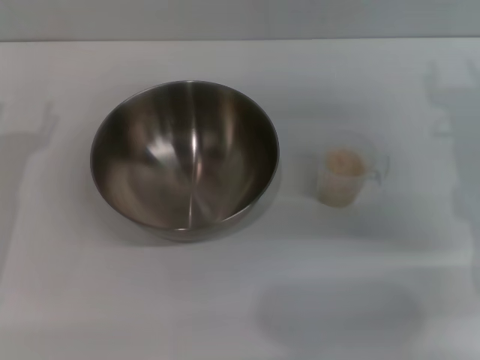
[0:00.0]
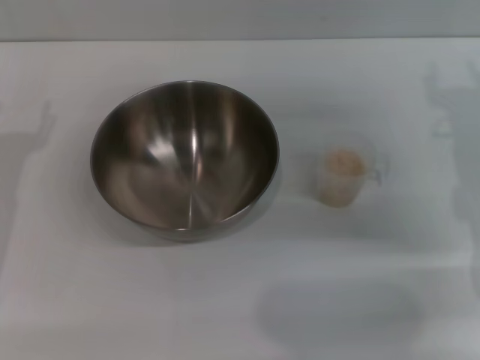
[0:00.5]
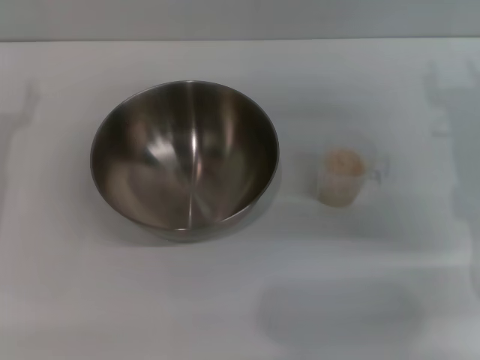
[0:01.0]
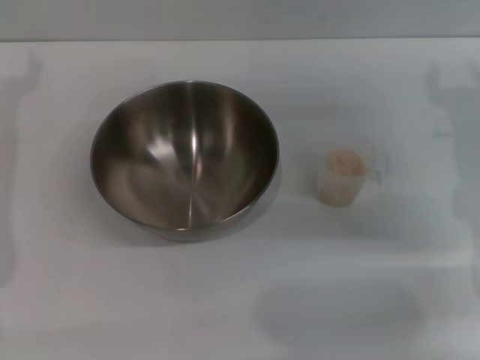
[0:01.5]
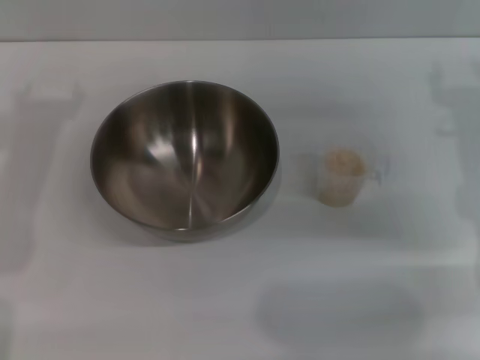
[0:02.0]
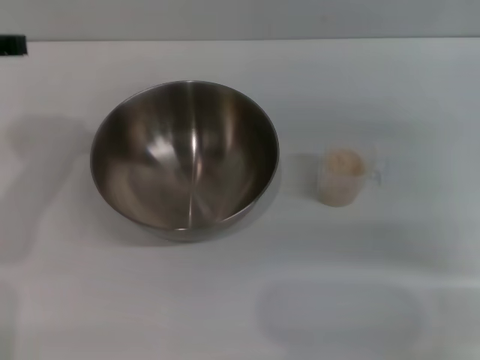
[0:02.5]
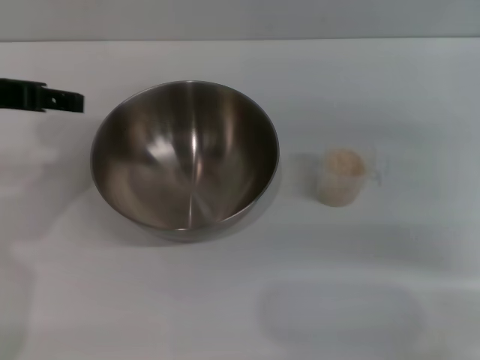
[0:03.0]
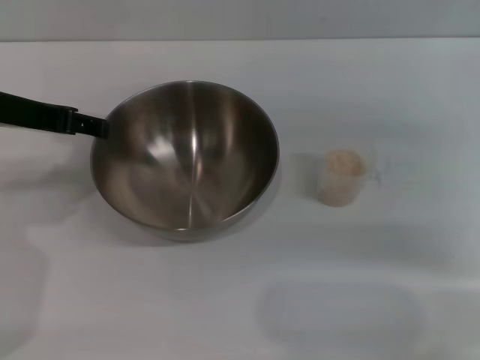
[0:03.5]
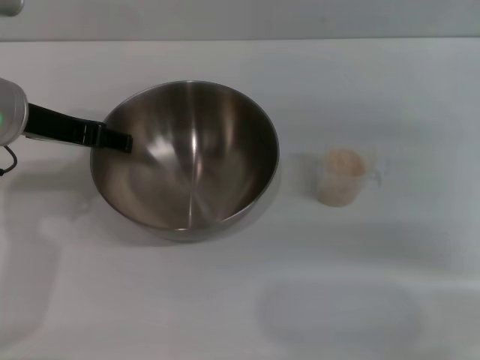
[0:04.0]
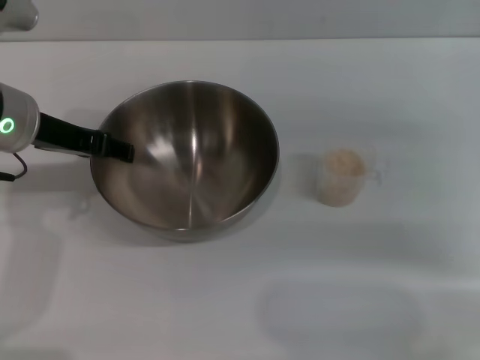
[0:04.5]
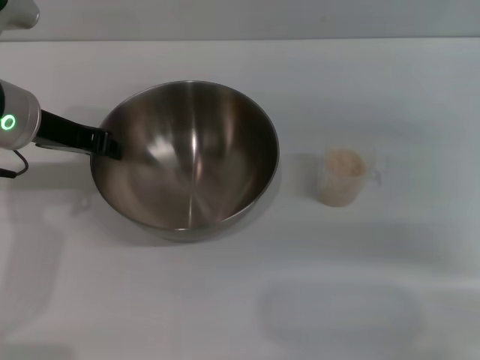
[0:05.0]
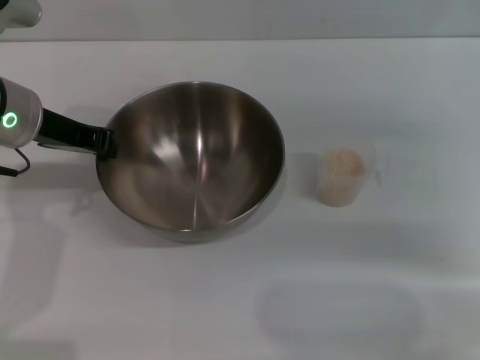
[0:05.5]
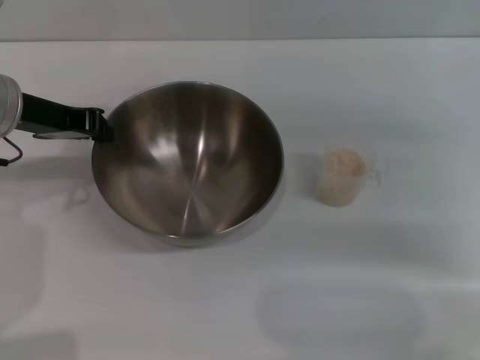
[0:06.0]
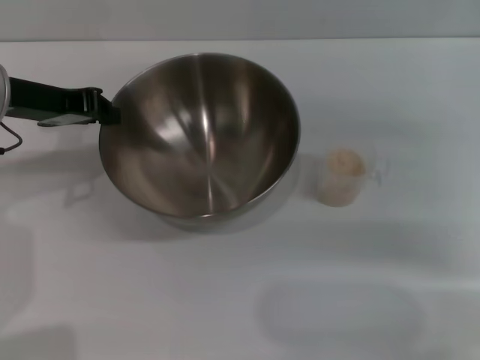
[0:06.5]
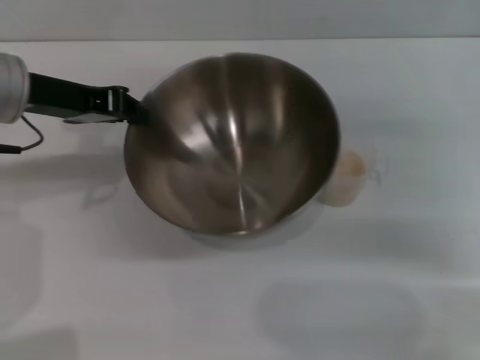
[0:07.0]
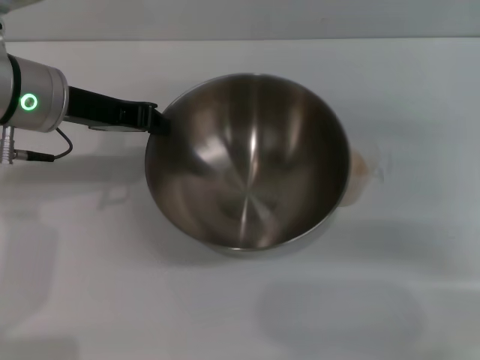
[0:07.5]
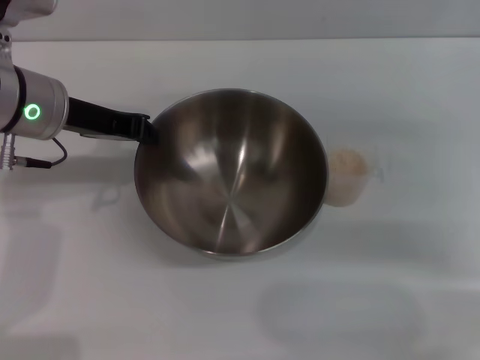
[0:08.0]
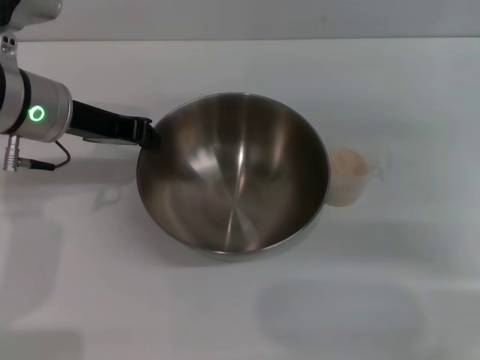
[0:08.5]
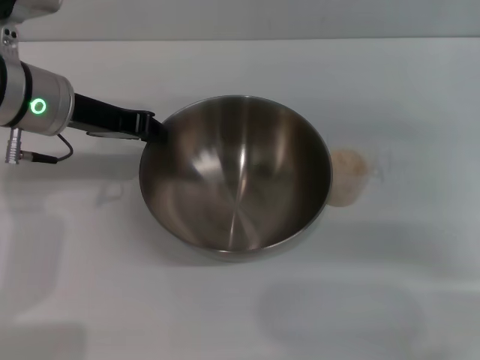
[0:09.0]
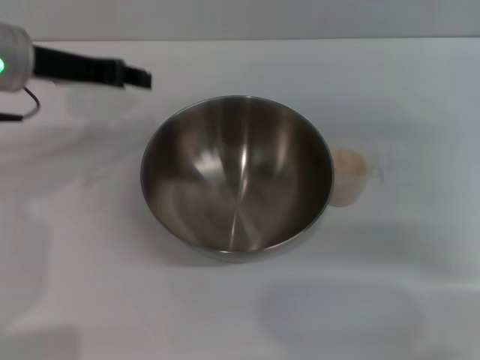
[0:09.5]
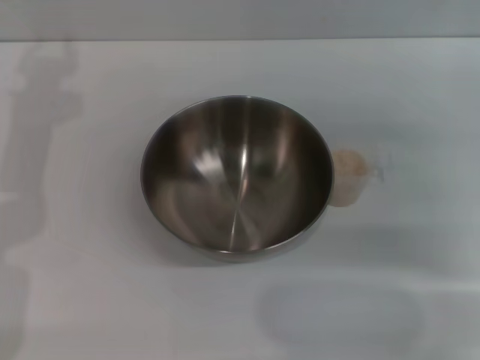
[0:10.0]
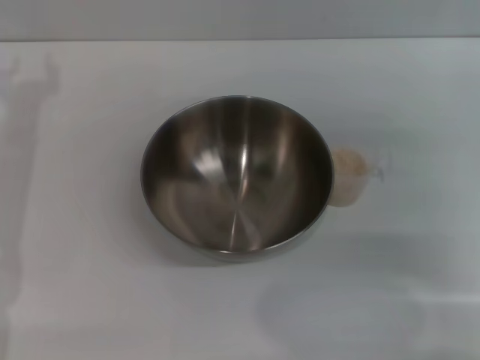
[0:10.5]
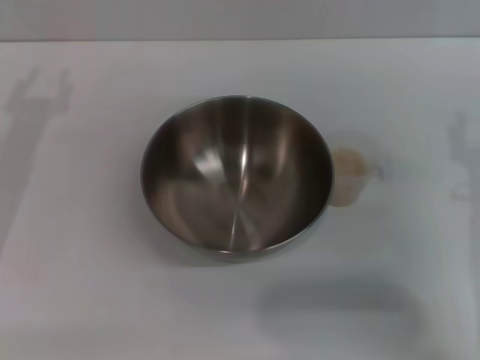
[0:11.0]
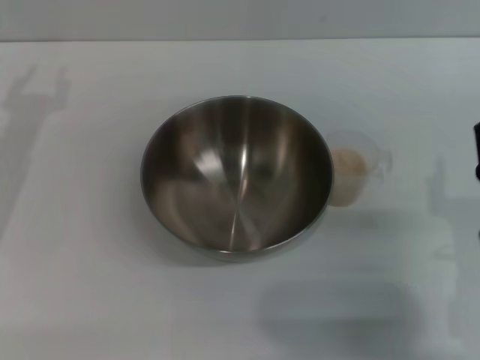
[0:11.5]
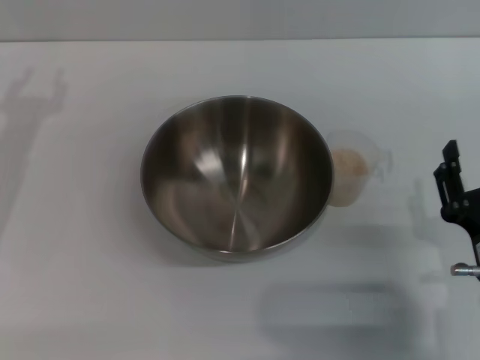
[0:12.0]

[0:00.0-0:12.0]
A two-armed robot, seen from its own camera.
Task of the whole recording: Place the bowl in the middle of the table with one hand and pour the rice from the grain cup into it with the other hand.
Step, 0:00.0 to 0:06.5: Pick up the bowl with the left gripper.
Step, 0:07.0 to 0:09.0: Place the bowl in the center of view with the left gripper.
0:02.0 to 0:04.0: The left gripper travels downward and to the right by some 10 cm. The right gripper changes place by about 5 cm.
0:04.0 to 0:06.0: The left gripper closes.
0:06.0 to 0:08.0: The grippers move only a little.
0:08.0 to 0:10.0: The left gripper shifts about 10 cm to the left, and opens its fingers.
0:10.0 to 0:12.0: The right gripper shifts about 20 cm backward, downward and to the left.

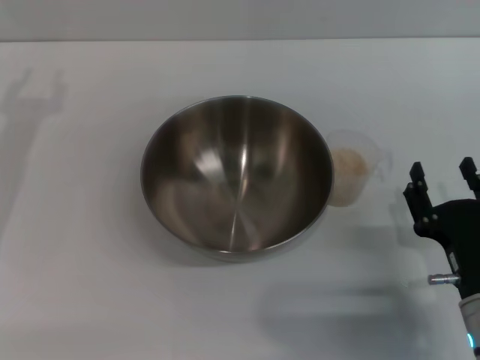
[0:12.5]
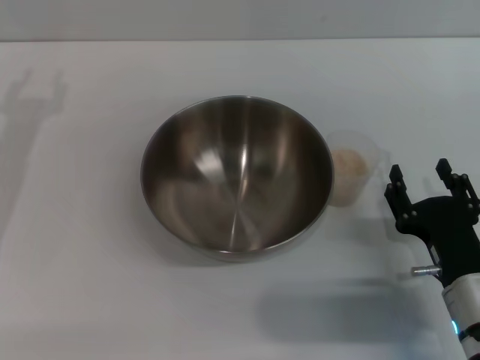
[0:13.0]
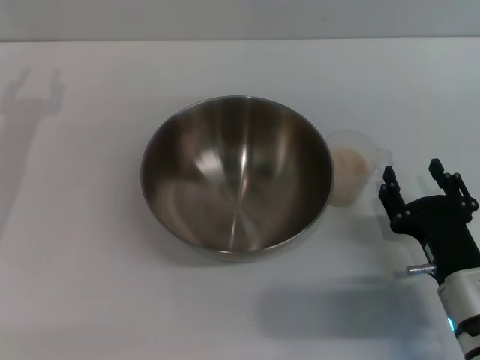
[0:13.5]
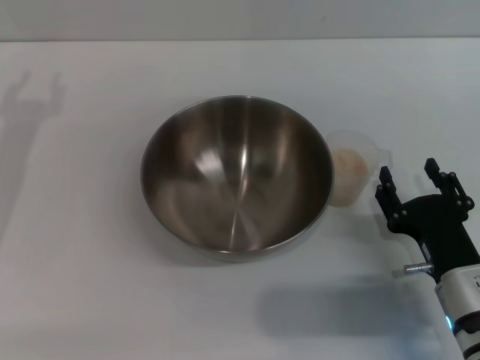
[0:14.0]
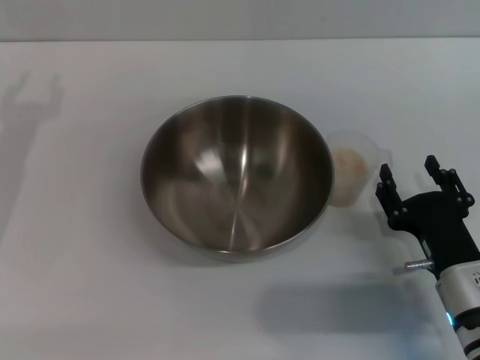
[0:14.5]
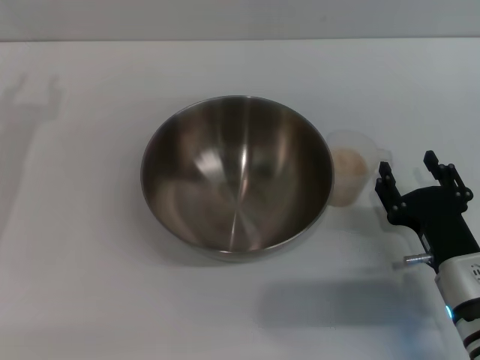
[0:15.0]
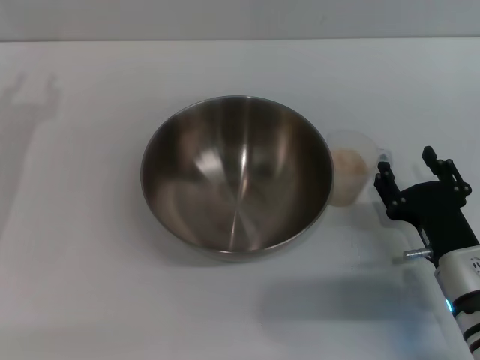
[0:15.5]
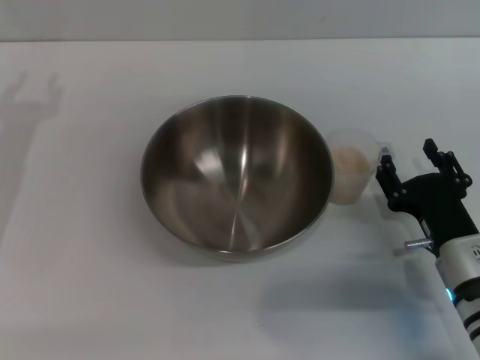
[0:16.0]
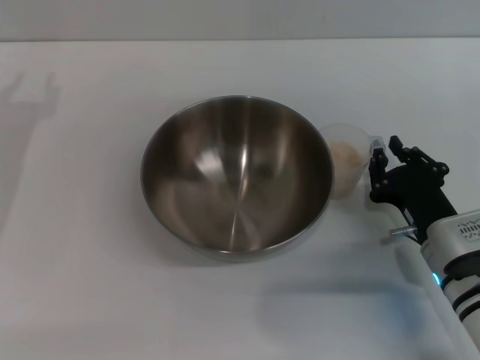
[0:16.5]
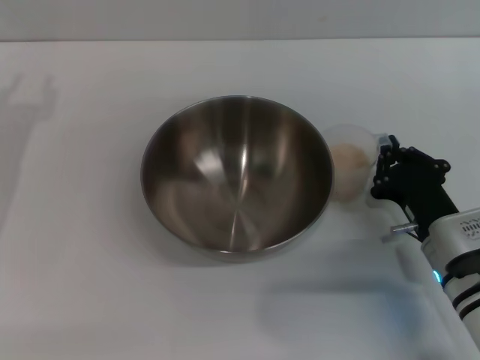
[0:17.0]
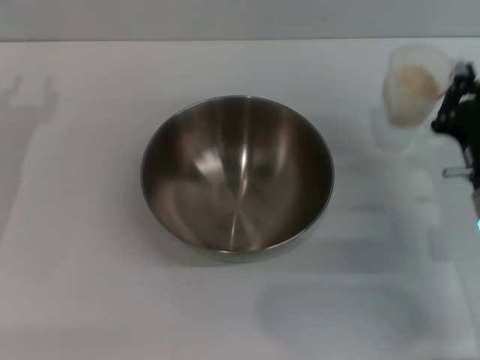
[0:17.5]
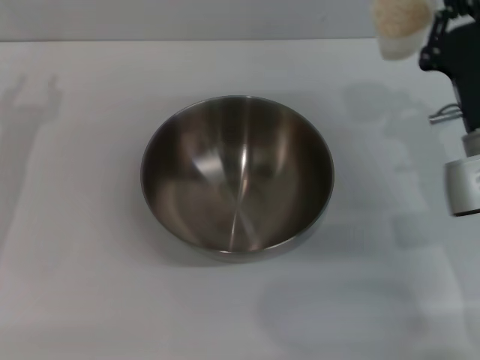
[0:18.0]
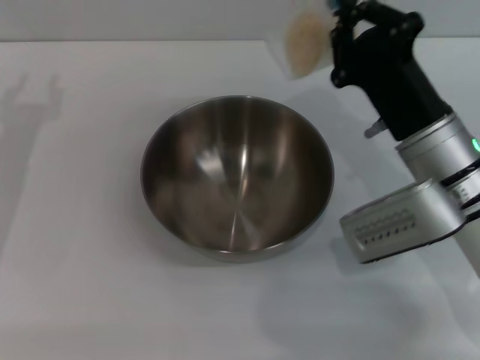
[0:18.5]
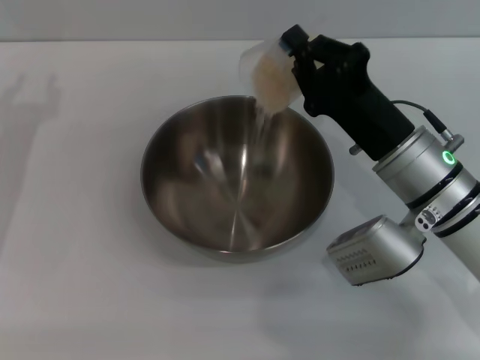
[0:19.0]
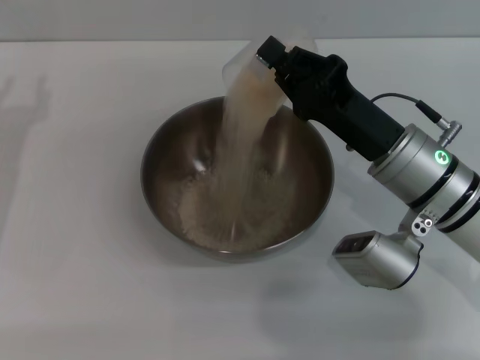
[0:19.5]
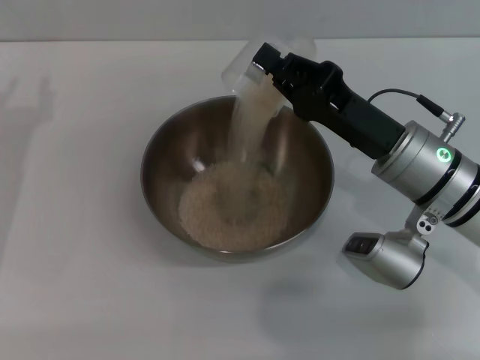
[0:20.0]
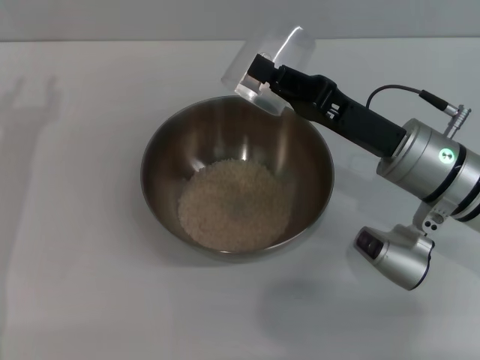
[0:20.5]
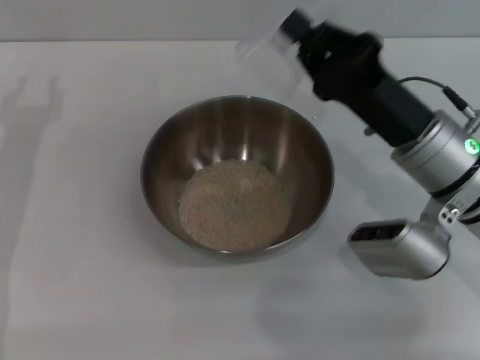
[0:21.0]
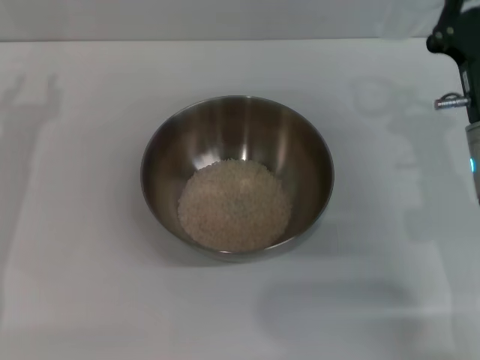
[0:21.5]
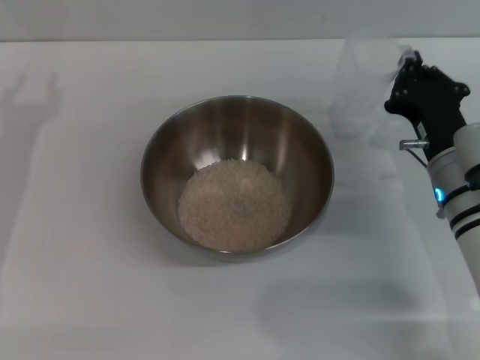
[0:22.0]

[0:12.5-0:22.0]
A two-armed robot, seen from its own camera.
Task of the whole recording: Place the bowl in the middle of the table with one hand and pour the rice from the grain cup into it with the other hand.
Step, 0:12.5 to 0:17.0: Pick up the cup with rice in it with the right gripper.
Step, 0:17.5 to 0:20.5: Pour the rice from the cup into the bowl with the right gripper.
0:12.5 to 0:14.5: The grippers stay close to where they were, moving slightly.
0:14.5 to 0:16.5: The right gripper closes up.
0:16.5 to 0:18.0: The right gripper heads upward and forward, covering approximately 10 cm, and closes up.
0:18.0 to 0:20.0: The right gripper shifts approximately 5 cm to the left.
0:20.0 to 0:22.0: The right gripper ends up some 5 cm from where it was.

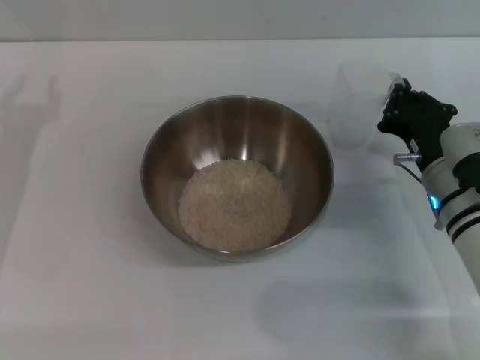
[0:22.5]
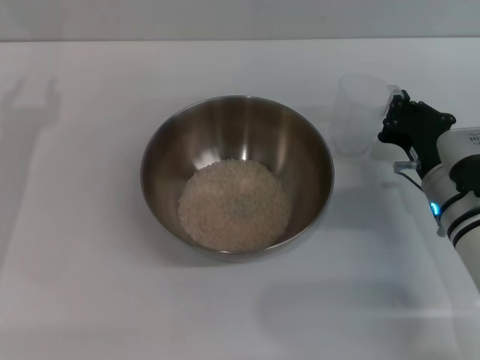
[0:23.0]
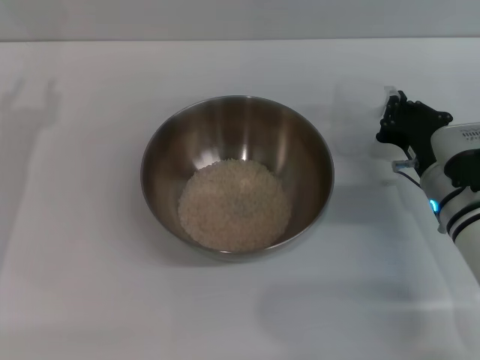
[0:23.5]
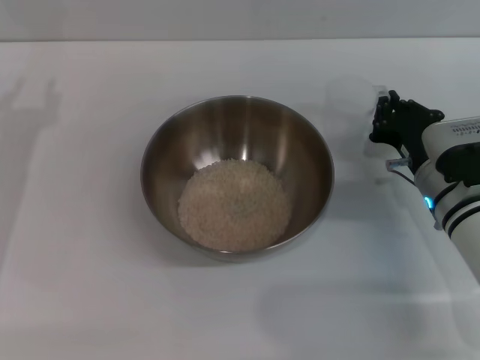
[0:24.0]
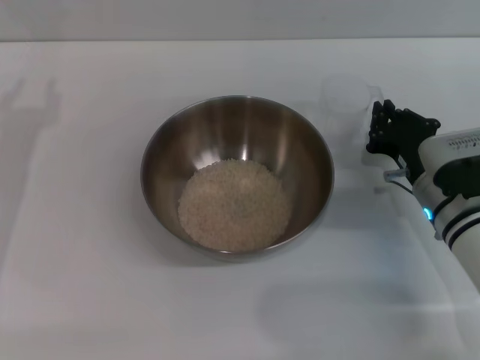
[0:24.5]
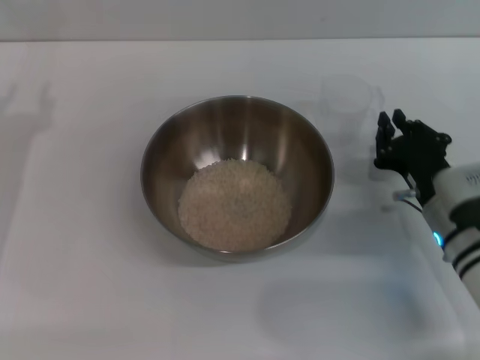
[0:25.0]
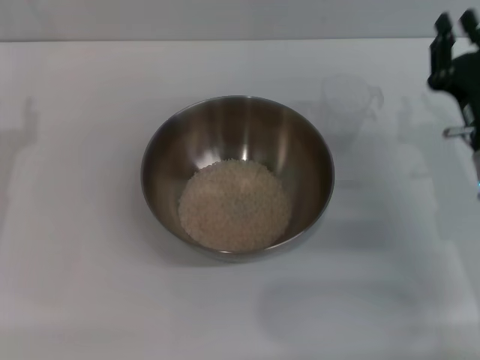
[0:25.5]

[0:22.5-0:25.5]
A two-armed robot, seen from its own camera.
Task of the whole recording: Place the bowl in the middle of the table with one hand and pour the rice from the grain cup into it with the other hand.
Step, 0:22.5 to 0:25.0: Place the cup on the table with the right gripper.
0:22.5 to 0:24.0: The grippers stay close to where they were, moving slightly.
0:24.0 to 0:25.5: The right gripper changes place by roughly 5 cm.
